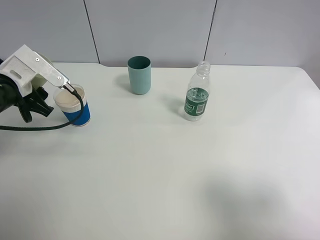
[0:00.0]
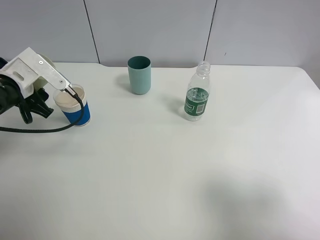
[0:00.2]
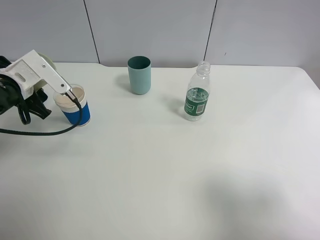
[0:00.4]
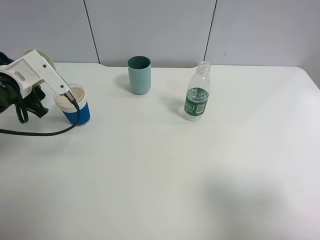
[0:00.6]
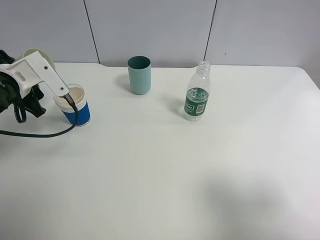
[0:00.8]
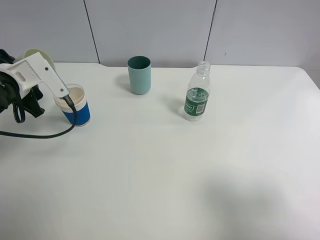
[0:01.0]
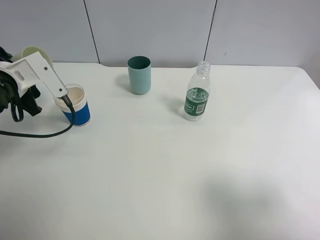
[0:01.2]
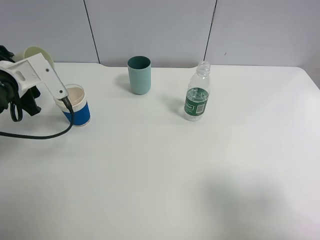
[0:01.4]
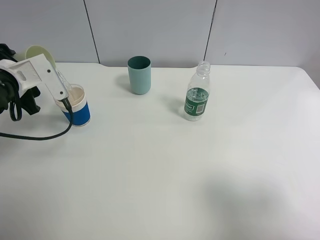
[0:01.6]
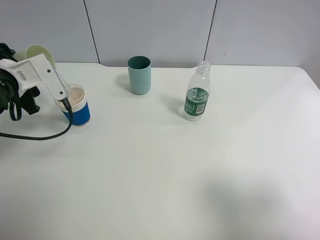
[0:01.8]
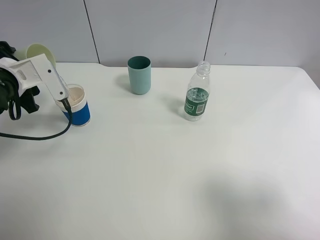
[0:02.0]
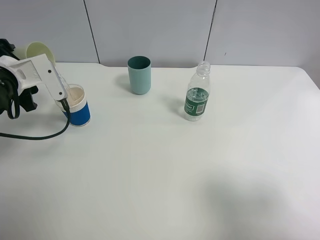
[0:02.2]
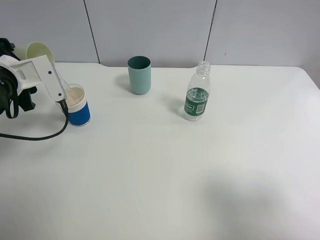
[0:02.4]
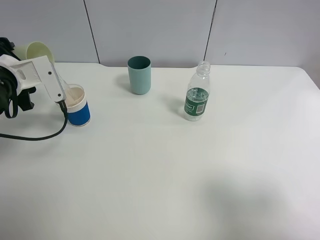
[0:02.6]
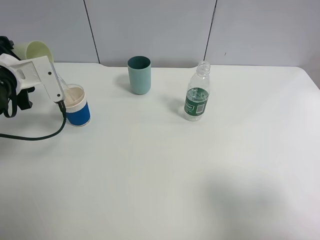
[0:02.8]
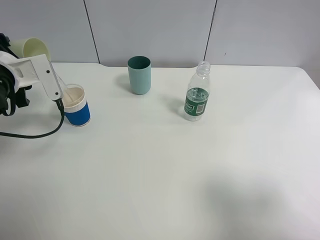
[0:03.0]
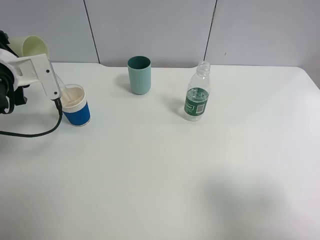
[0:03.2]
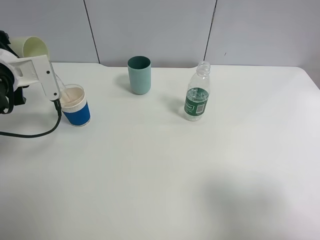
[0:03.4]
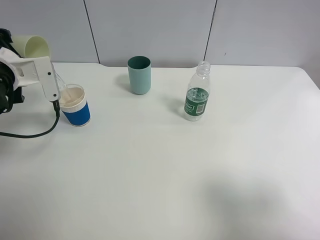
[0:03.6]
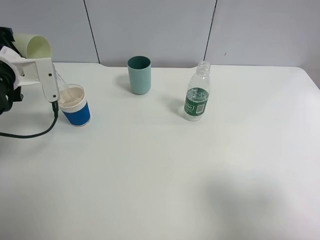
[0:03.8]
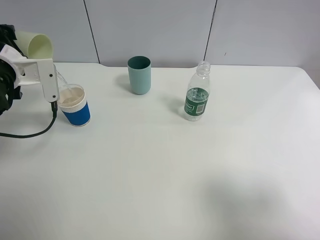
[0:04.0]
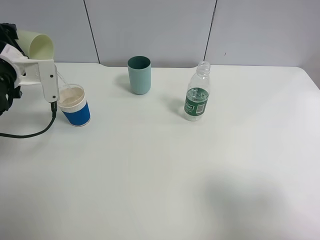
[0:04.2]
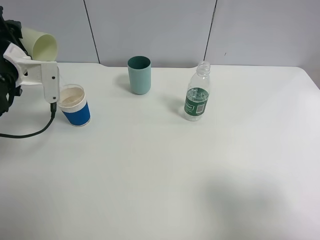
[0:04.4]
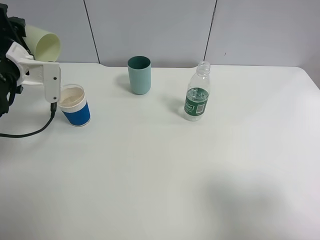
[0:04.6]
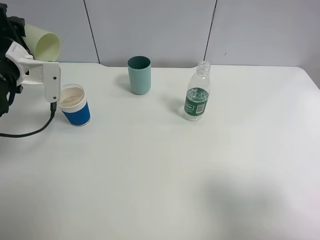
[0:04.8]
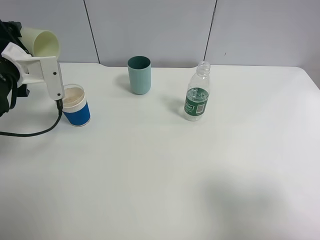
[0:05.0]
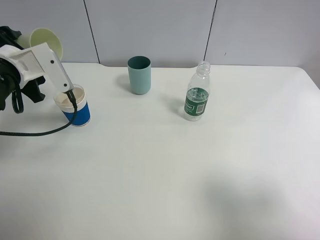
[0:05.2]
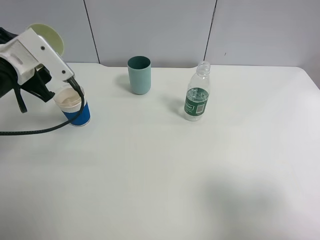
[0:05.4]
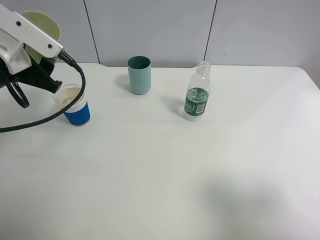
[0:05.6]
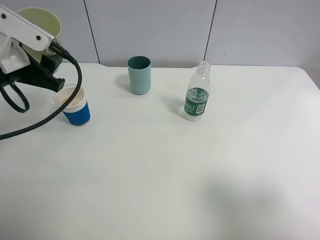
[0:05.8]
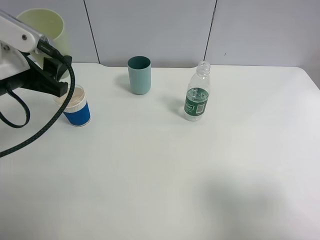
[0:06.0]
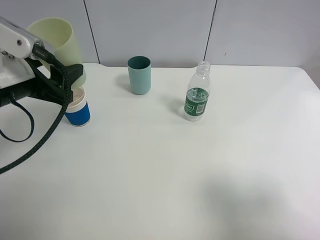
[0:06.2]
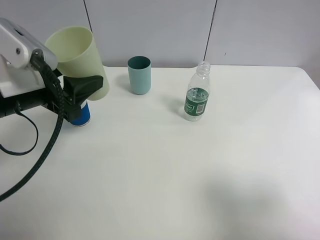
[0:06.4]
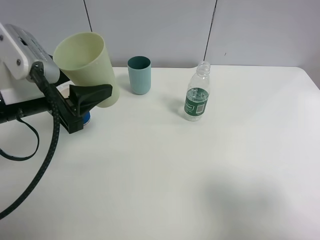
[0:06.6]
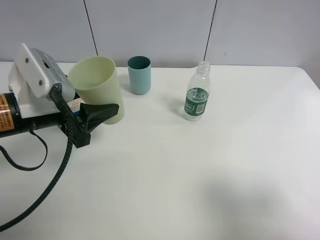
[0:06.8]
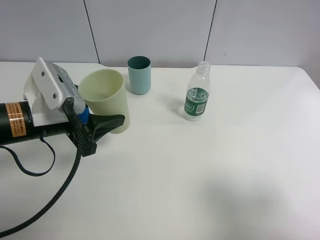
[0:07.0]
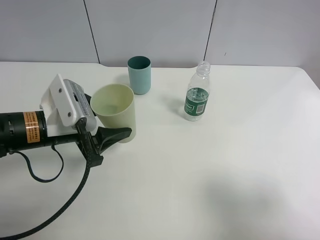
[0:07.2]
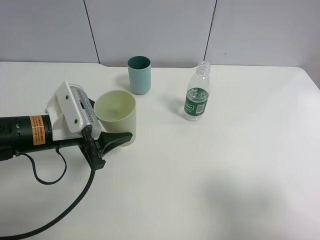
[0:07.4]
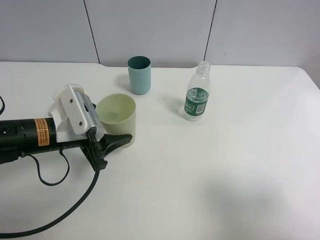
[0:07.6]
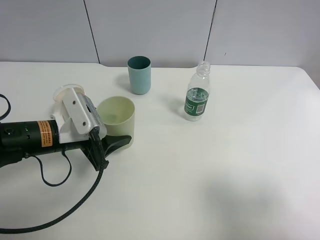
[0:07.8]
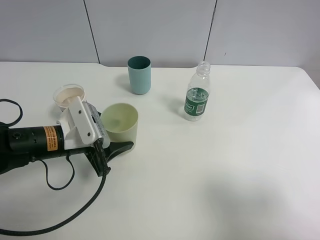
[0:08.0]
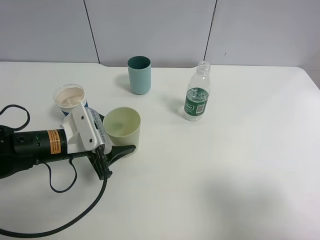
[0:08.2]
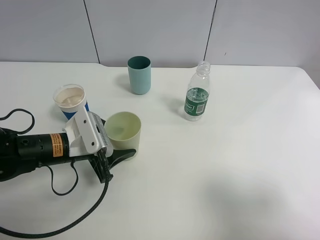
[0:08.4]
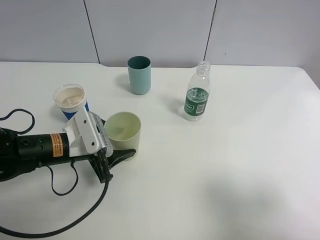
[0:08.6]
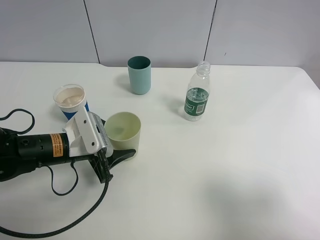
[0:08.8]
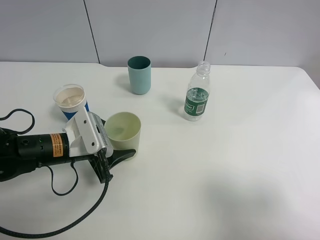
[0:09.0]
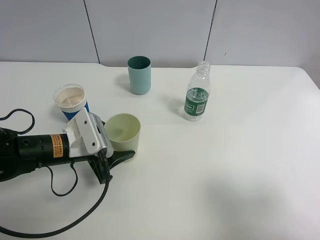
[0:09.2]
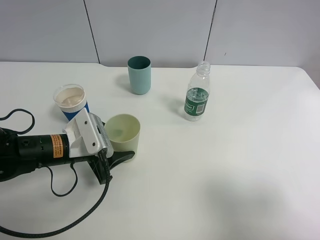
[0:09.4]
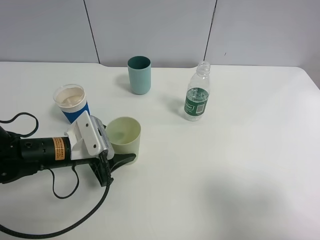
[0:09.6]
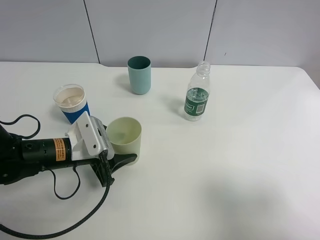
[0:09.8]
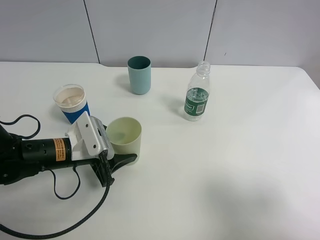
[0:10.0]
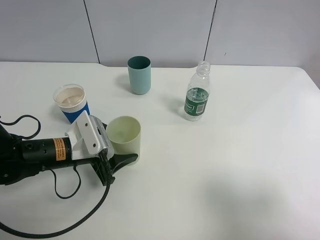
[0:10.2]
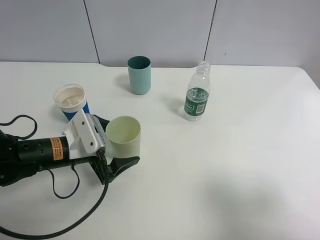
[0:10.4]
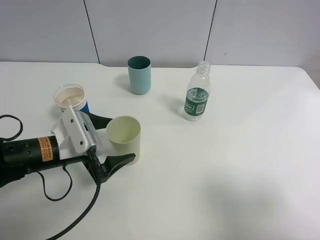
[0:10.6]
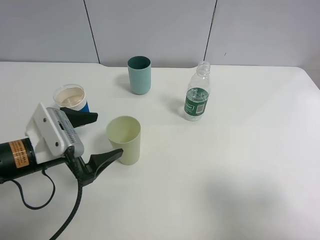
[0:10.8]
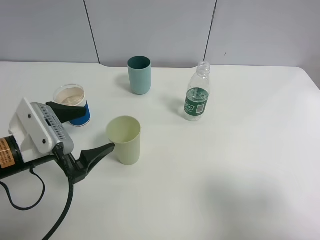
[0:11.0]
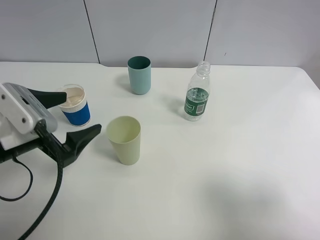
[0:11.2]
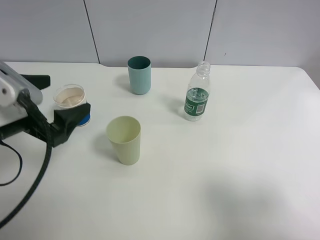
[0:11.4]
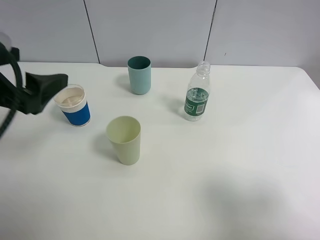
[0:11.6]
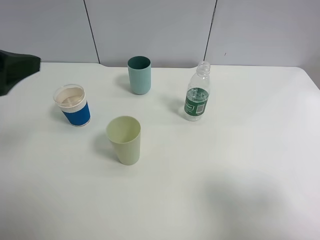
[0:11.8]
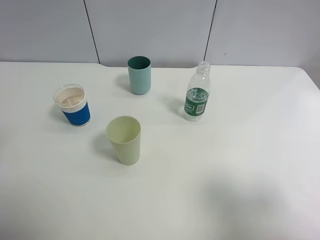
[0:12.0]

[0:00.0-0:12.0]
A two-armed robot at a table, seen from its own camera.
Task of the whole recording: use a clamp to hold the bottle of the drink, pour the beverage into a random cup, then clamp the cup containing the drink and pour the drink into another random cup.
Step, 0:00.0 to 0:05.0: Pour water into the paper cup with left gripper.
Step, 0:05.2 to 0:10.2: Place the green plastic cup on the table with left gripper.
0:01.6 to 0:03.0: There are only small adjustments of the grippers.
0:04.4 to 0:06.0: The left gripper heads backward, covering about 5 cm.
0:06.0 to 0:07.6: The left gripper moves downward and to the right, some 10 cm.
0:07.6 to 0:09.0: The grippers stay close to where they were, moving slightly.
0:09.0 to 0:10.4: The left gripper opens up.
0:10.4 to 0:12.0: The left gripper travels upward and to the left by about 30 cm.

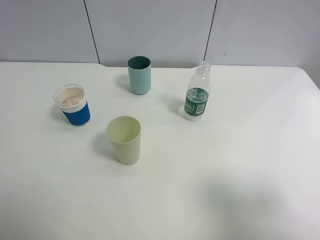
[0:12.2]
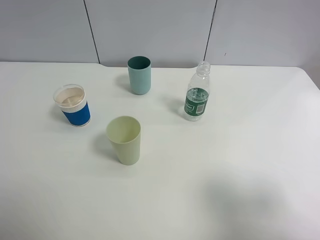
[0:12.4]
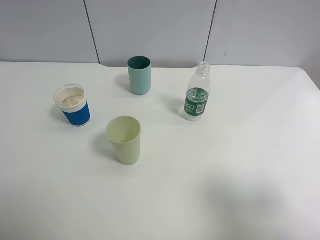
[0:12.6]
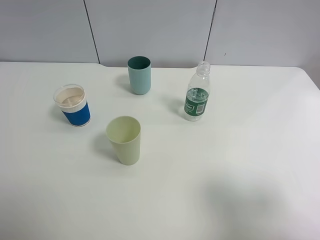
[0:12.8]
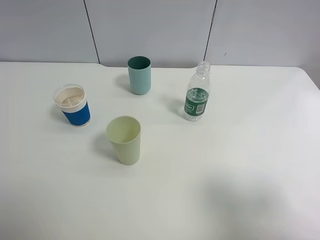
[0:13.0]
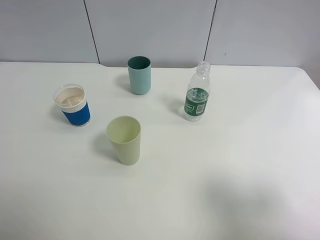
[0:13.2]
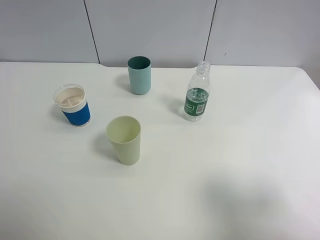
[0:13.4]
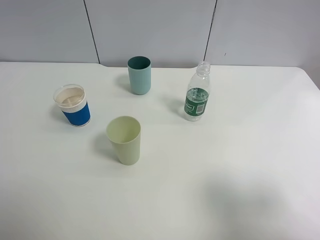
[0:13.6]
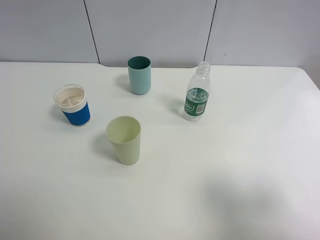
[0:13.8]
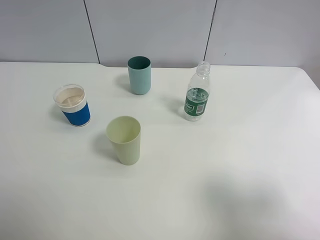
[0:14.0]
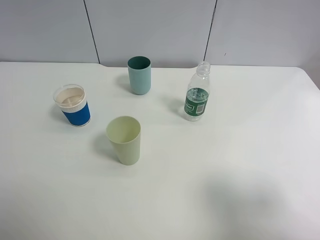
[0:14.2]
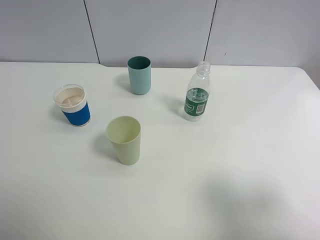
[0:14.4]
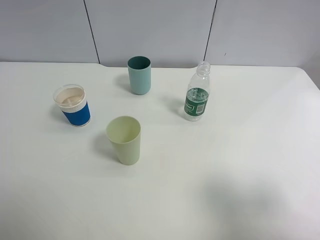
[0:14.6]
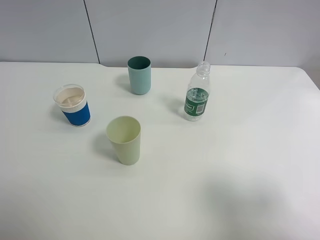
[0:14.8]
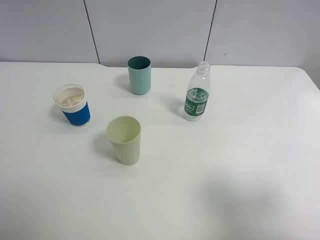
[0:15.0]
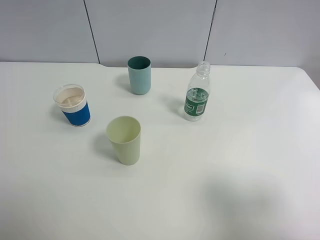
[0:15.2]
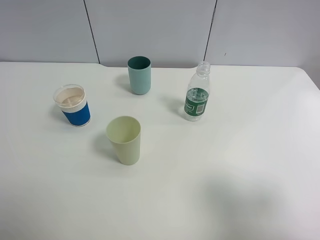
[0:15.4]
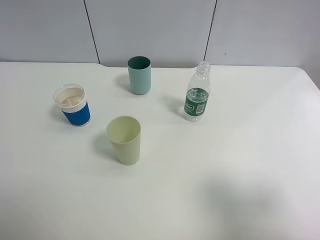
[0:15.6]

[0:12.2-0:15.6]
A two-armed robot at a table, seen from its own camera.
Task of the whole recording: use a clamp to hold the bottle of the drink, pour the beverage into a random cup, then clamp the cup containing the drink and pour the drink into another random cup.
0:13.8 to 0:15.6: The two grippers keep their place.
